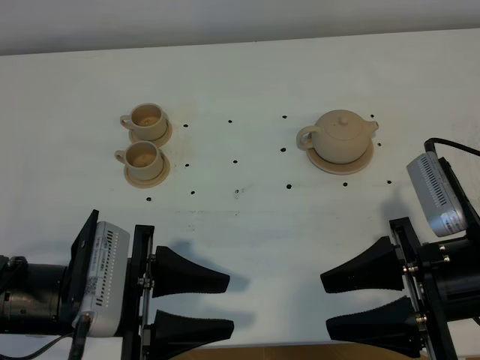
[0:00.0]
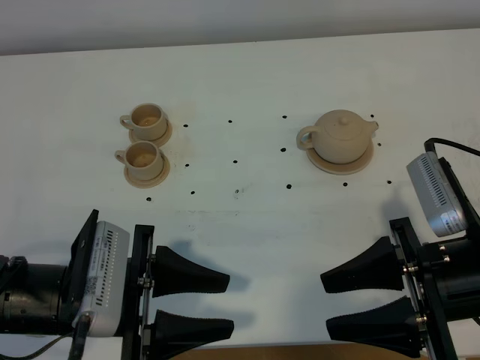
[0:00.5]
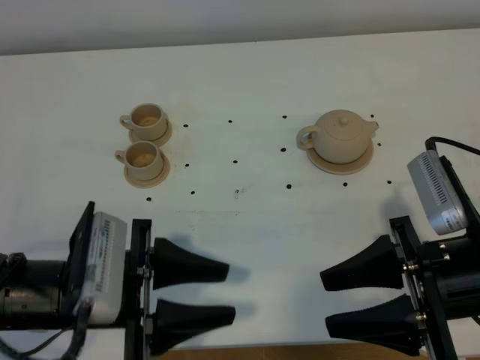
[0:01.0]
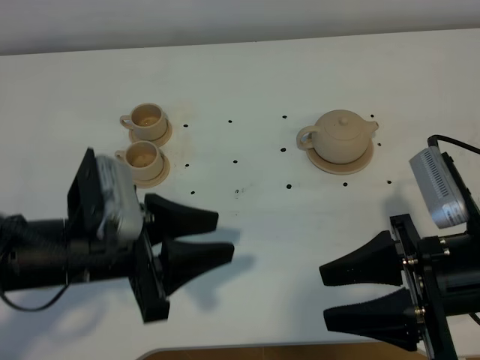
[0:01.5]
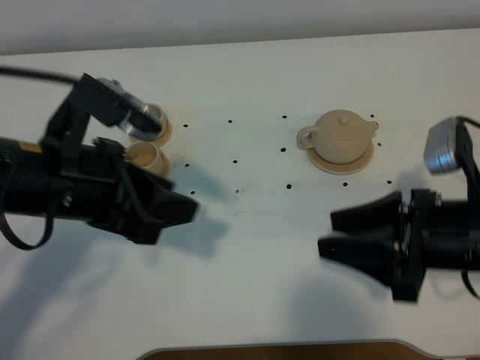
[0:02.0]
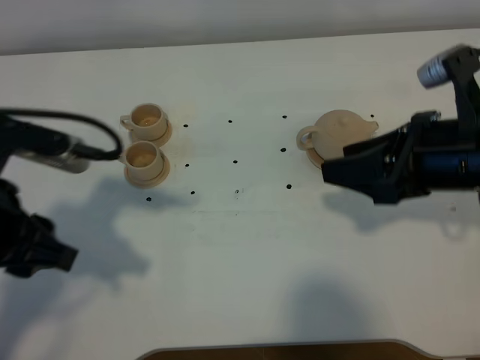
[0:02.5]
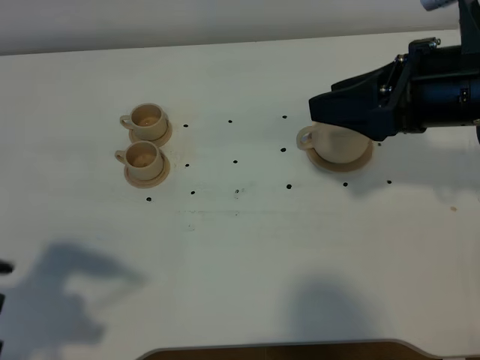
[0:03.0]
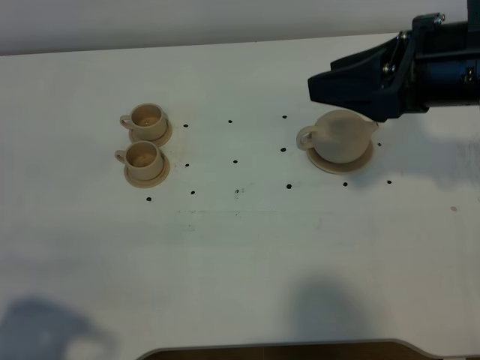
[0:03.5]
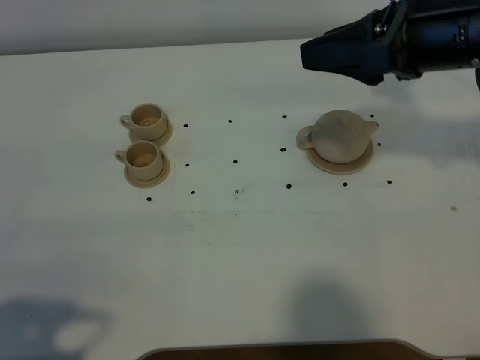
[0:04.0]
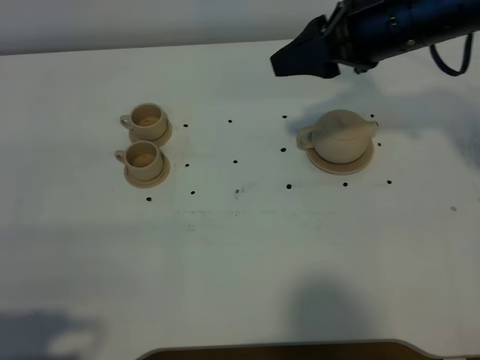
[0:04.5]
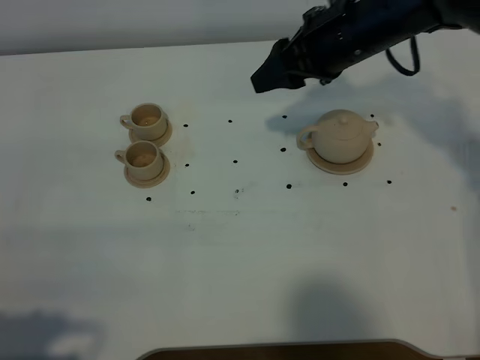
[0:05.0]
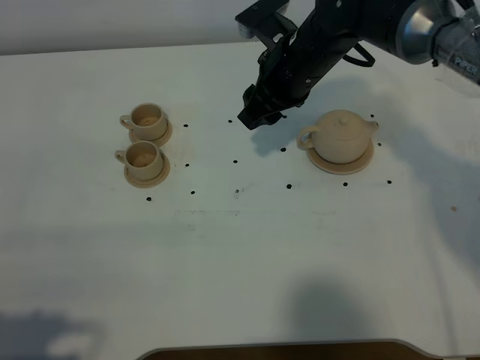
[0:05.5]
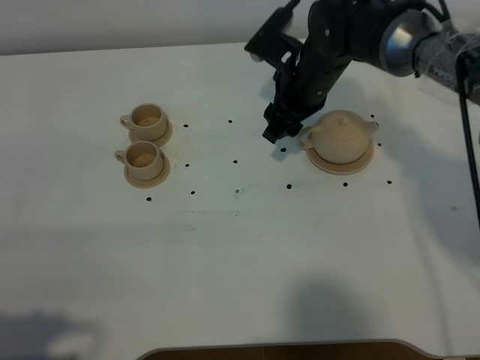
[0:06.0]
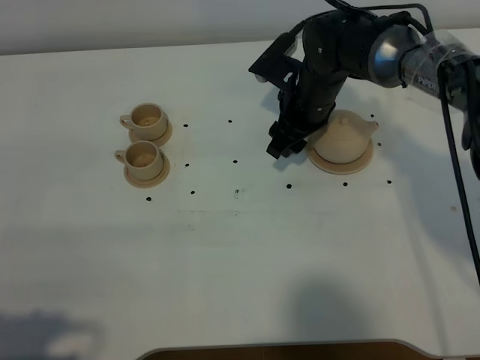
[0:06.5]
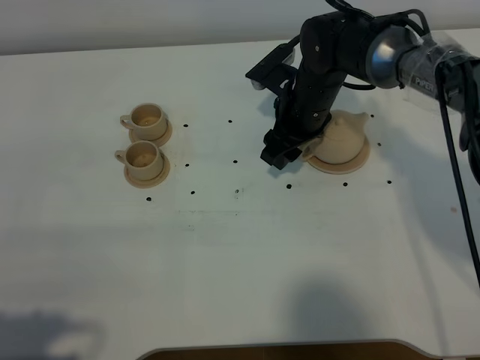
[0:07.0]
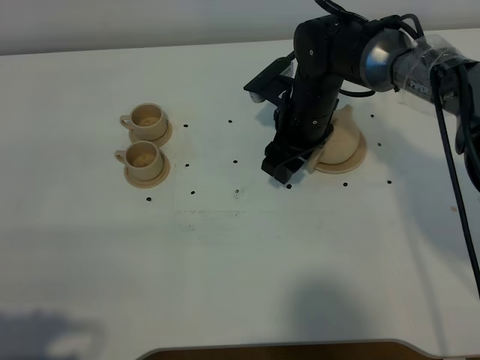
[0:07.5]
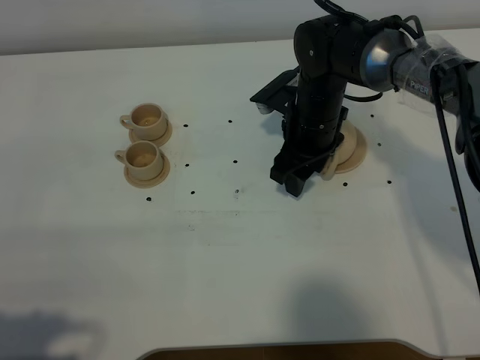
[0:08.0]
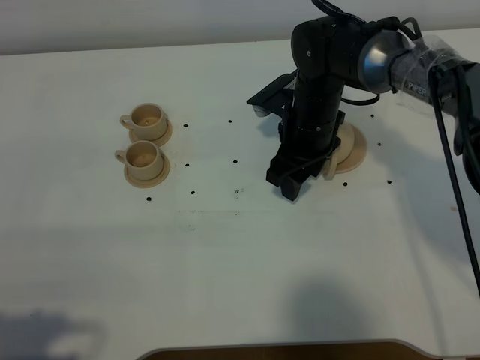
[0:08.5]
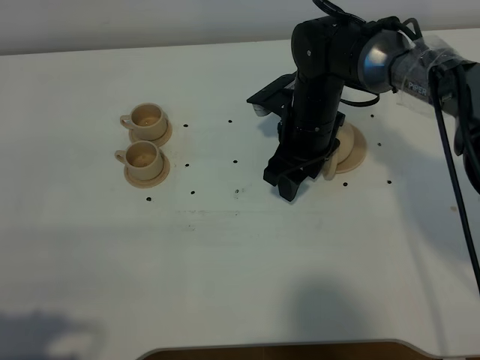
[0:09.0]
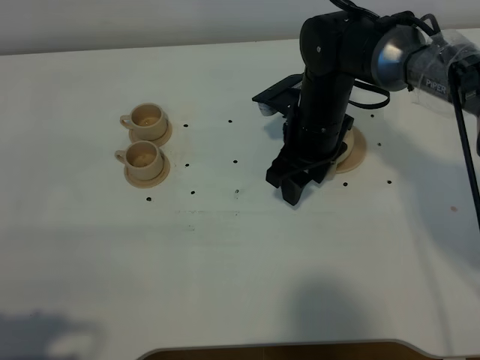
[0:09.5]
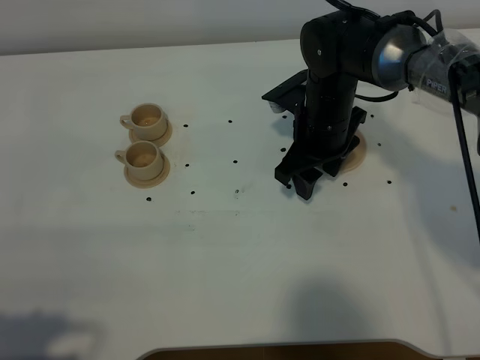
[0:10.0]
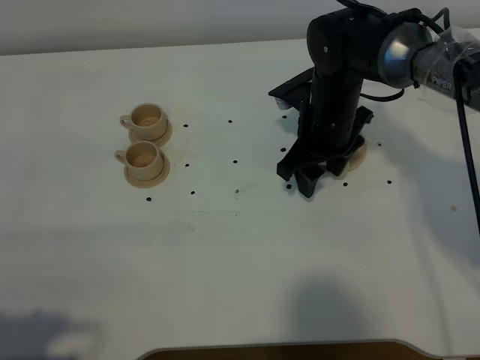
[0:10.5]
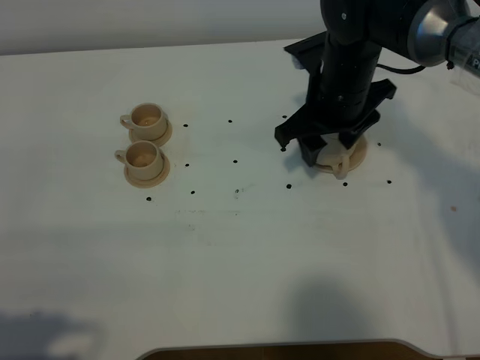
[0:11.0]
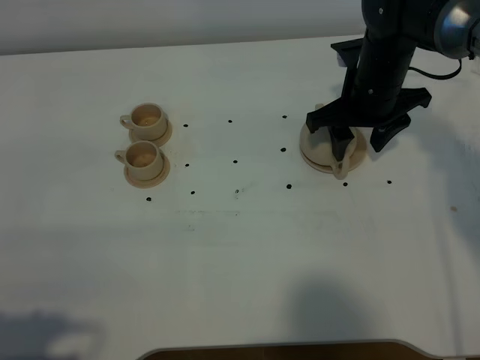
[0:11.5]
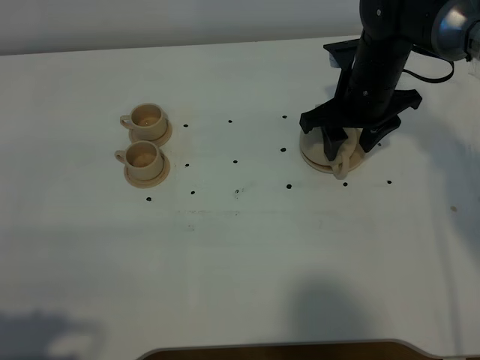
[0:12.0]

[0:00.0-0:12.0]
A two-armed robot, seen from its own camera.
Task of the whole recording: grasp the brown teapot and pour the tea into the two brown teacups one by one, put the brown teapot back in its original place.
0.0 to 2.0 s: The left gripper heads upward and forward, covering approximately 10 cm.
2.0 to 4.0 s: The right gripper heads upward and forward, covering about 15 cm. The left gripper travels backward and to the left by roughly 25 cm.
4.0 to 6.0 s: The right gripper shifts approximately 25 cm downward, forward and to the left.
8.0 to 10.0 s: The grippers stay close to where they were, moving slightly.
10.0 to 12.0 s: The right gripper travels to the right by roughly 5 cm.

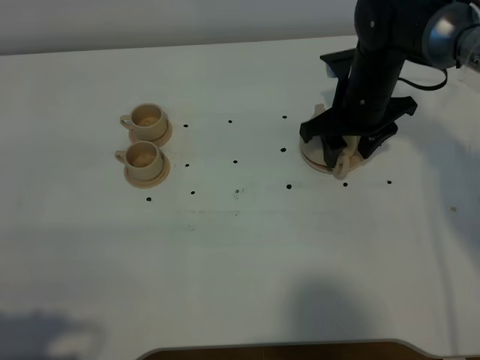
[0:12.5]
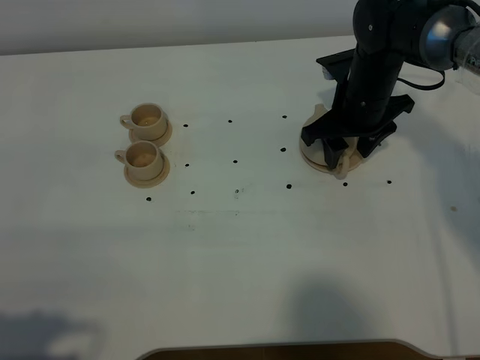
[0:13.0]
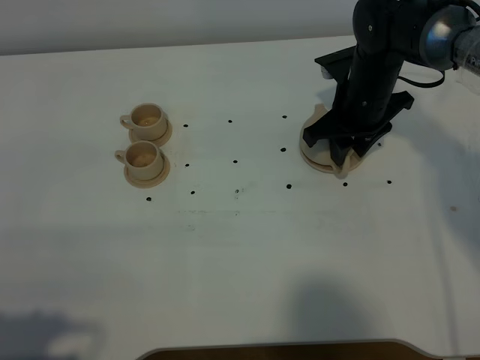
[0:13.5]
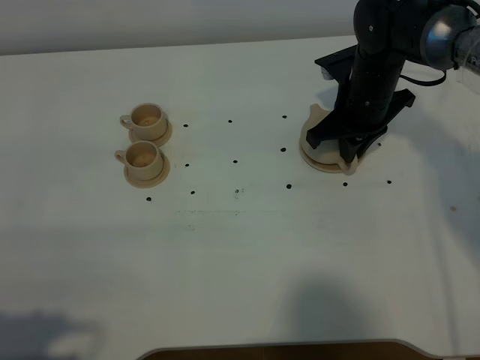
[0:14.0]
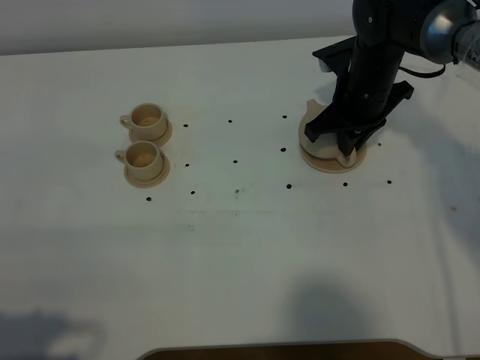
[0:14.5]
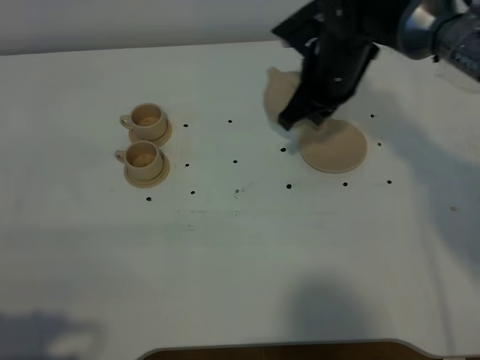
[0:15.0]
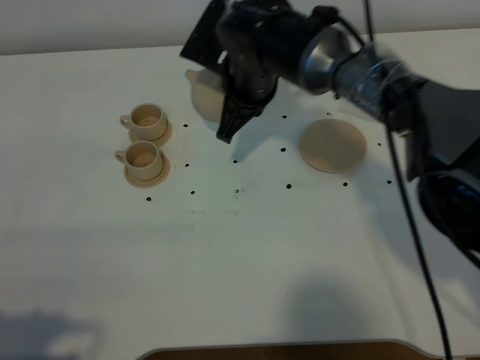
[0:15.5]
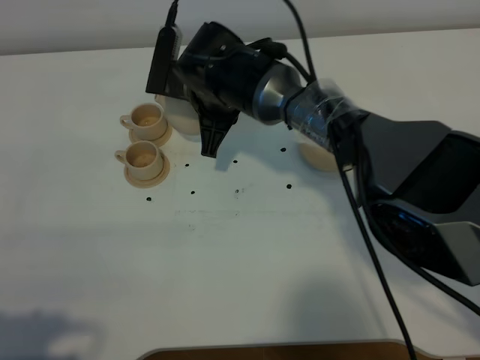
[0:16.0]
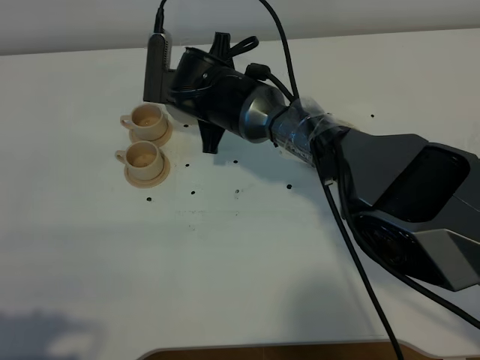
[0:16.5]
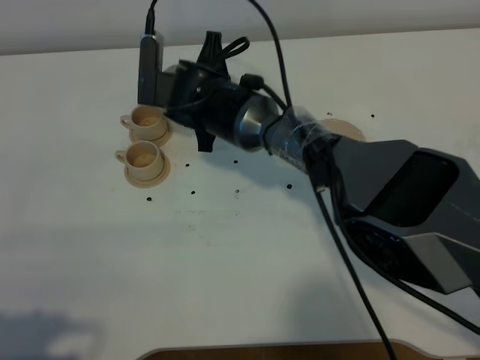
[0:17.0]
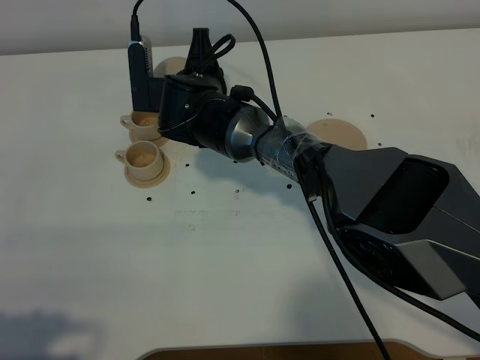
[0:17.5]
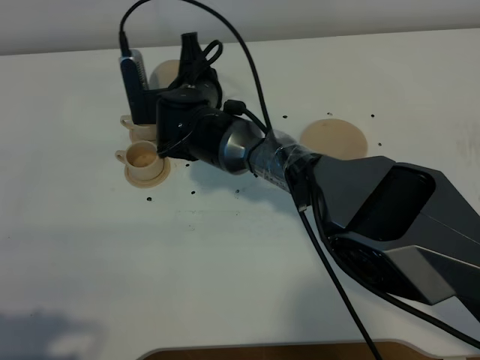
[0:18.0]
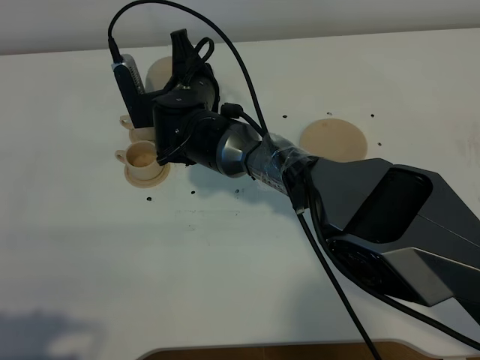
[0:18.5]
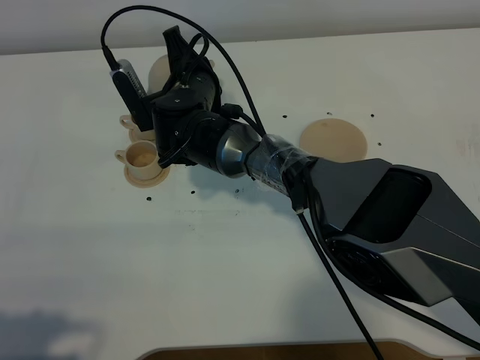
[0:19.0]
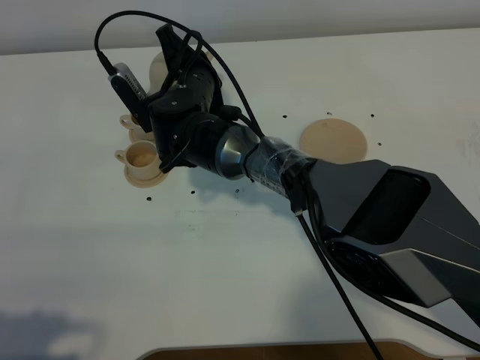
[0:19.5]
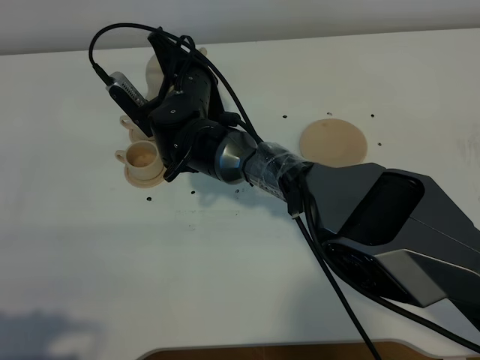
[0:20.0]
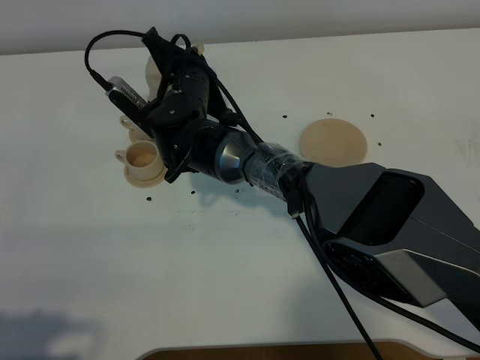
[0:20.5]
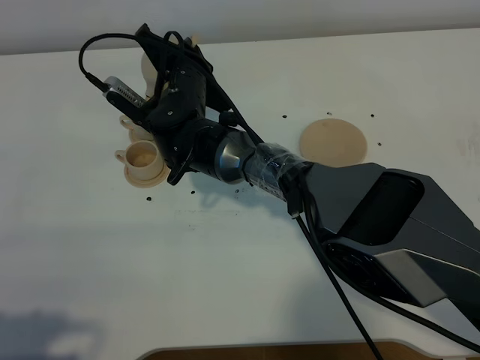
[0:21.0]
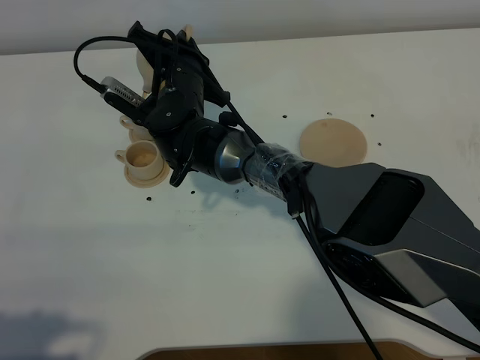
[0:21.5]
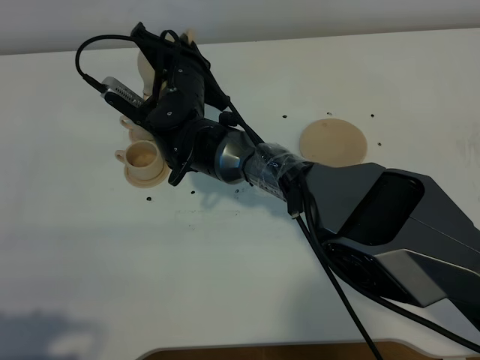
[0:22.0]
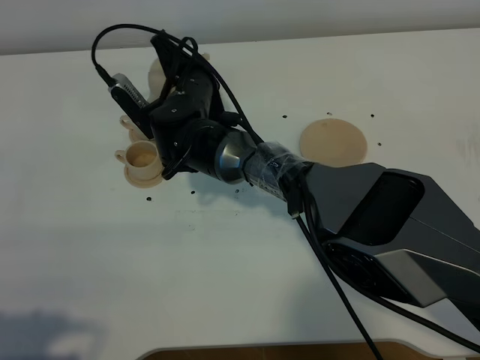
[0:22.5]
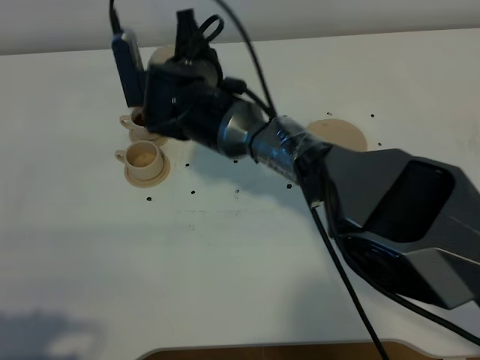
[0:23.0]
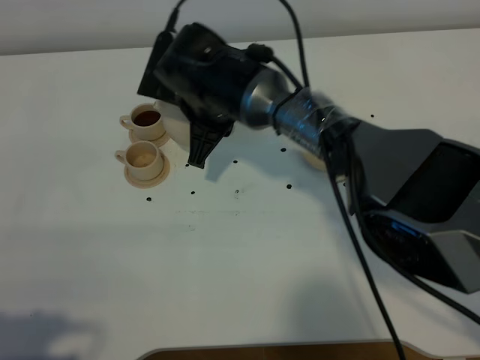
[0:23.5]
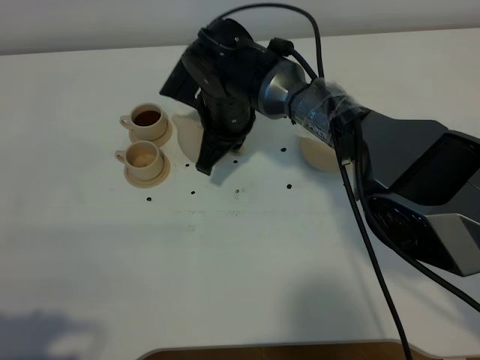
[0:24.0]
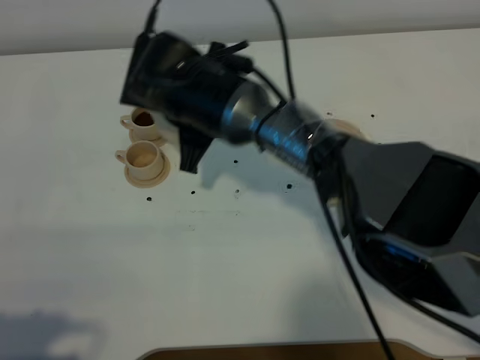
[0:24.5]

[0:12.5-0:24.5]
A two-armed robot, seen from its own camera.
Task of the whole recording: grasp the brown teapot and pour the tea into the two brown teacups one by one, put the brown teapot back in its original place.
Step, 12.5 to 14.5 s: Pick up the teapot with the right gripper.
Step, 15.0 to 23.0 s: Pour tea into the teacup with the right gripper.
12.5 to 14.5 s: The right gripper closes up.
14.5 to 16.5 s: The right gripper goes about 20 cm to the left.
20.5 to 22.5 s: The grippers move only a little.
22.5 to 24.5 s: The right gripper is displaced upward and backward by about 10 cm.

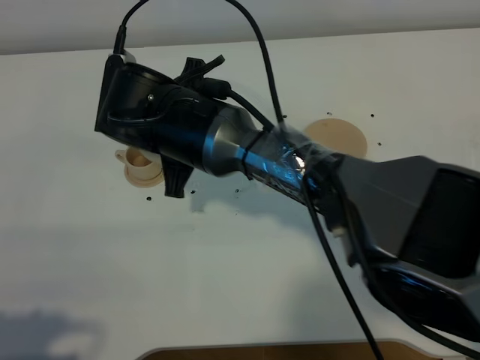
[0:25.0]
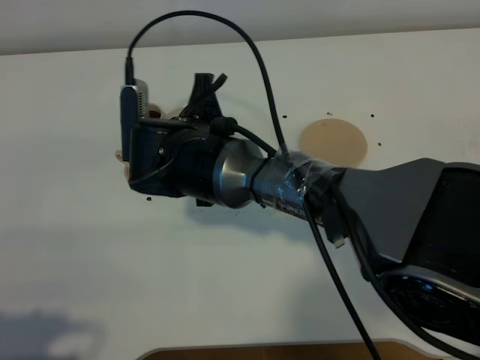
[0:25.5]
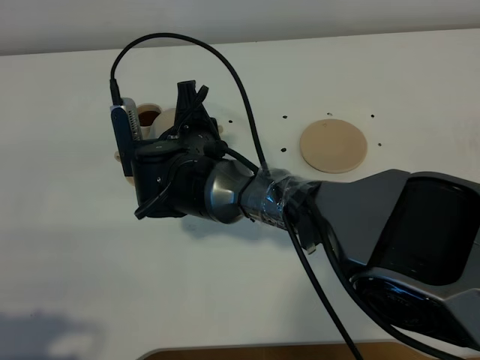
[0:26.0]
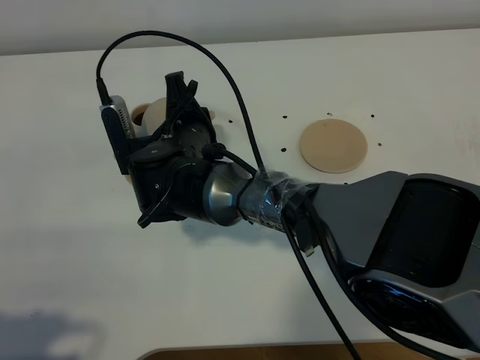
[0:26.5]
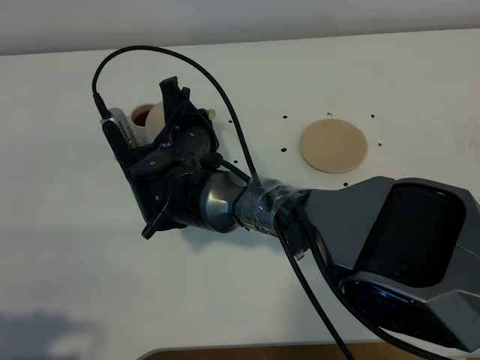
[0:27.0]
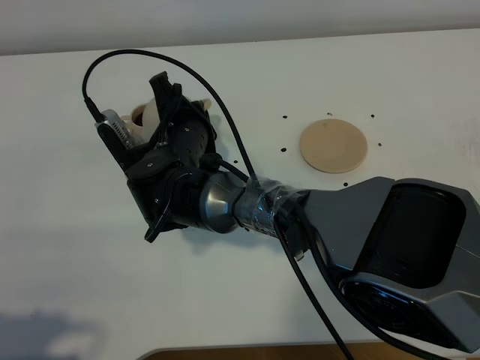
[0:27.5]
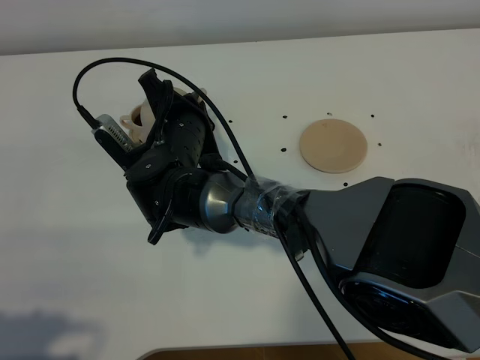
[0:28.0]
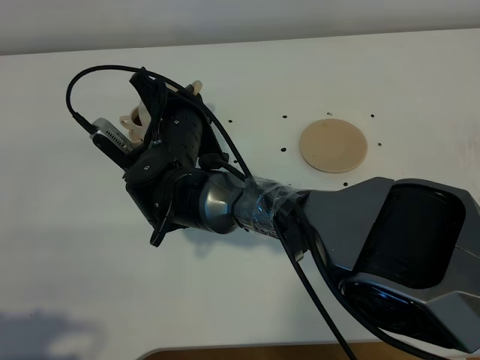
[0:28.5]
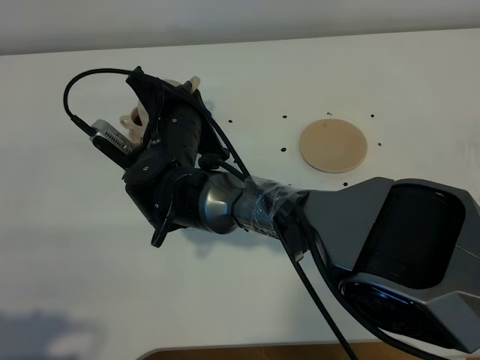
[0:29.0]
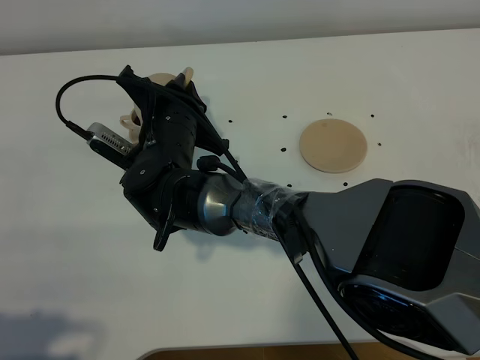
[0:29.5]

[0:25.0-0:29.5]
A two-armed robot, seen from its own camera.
Task of the whole recording: grasp the brown teapot and pour the tea into the two brown teacups one by one, put the brown teapot back in its original place.
25.0 to 27.0 s: The right gripper heads downward, covering about 10 cm.
